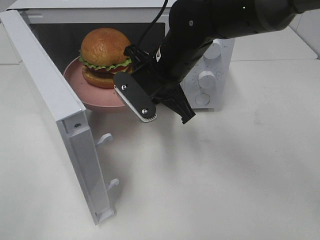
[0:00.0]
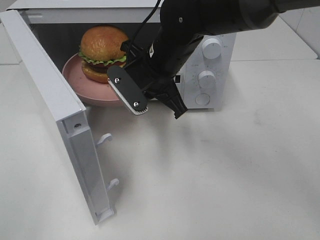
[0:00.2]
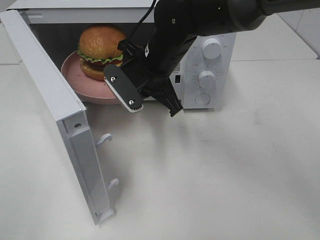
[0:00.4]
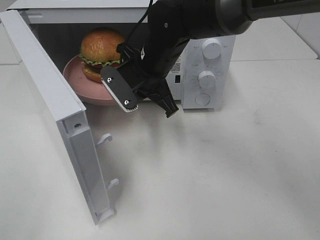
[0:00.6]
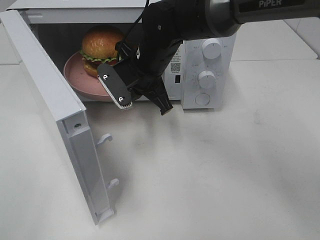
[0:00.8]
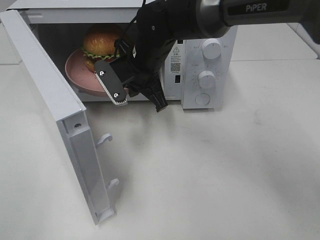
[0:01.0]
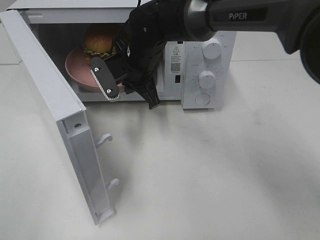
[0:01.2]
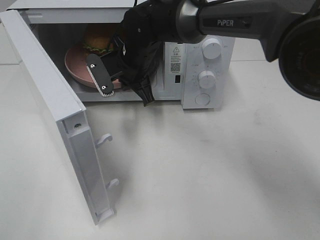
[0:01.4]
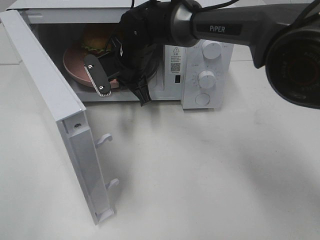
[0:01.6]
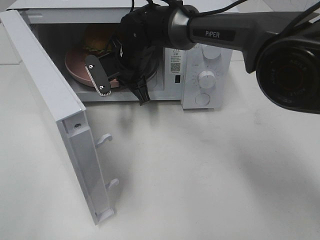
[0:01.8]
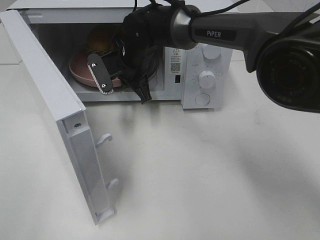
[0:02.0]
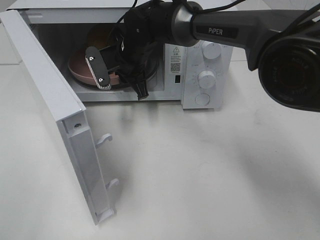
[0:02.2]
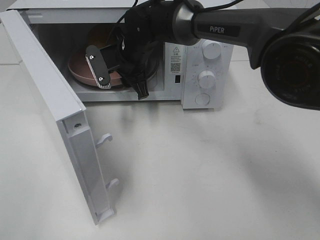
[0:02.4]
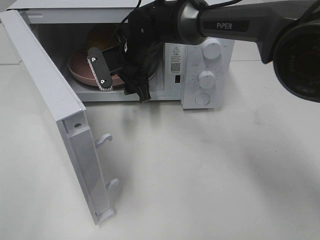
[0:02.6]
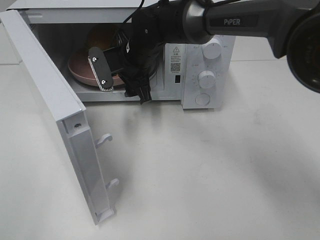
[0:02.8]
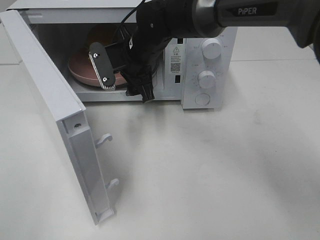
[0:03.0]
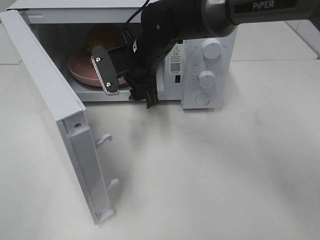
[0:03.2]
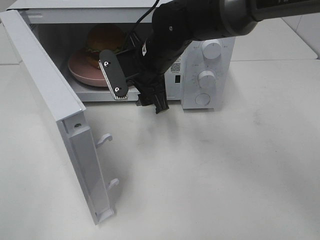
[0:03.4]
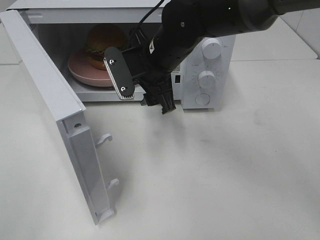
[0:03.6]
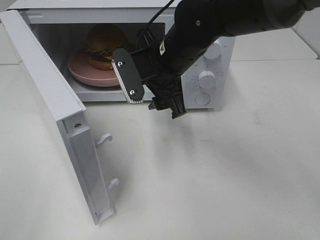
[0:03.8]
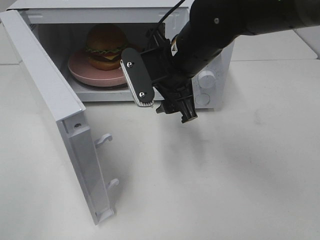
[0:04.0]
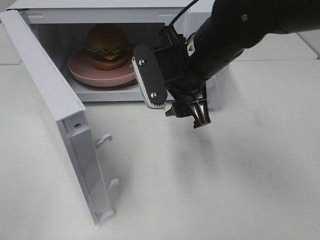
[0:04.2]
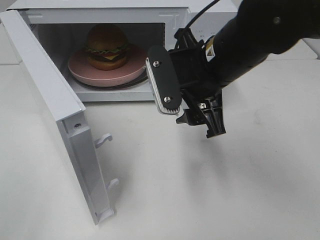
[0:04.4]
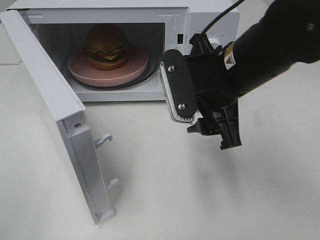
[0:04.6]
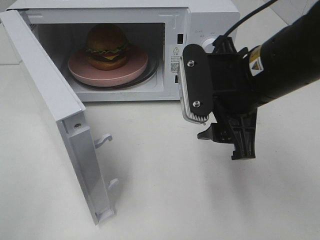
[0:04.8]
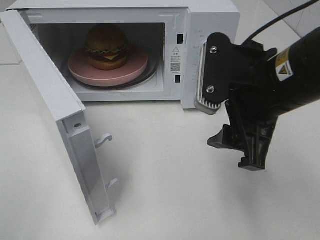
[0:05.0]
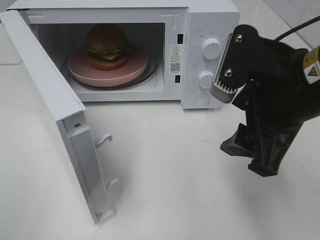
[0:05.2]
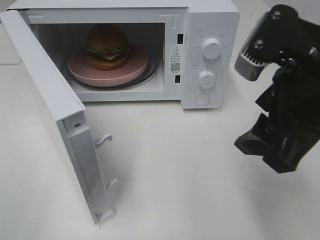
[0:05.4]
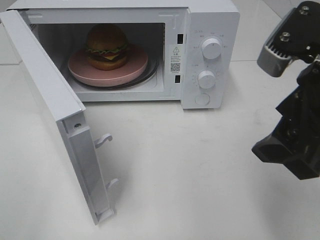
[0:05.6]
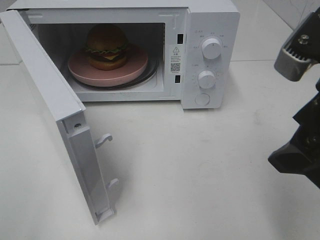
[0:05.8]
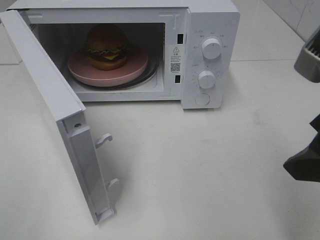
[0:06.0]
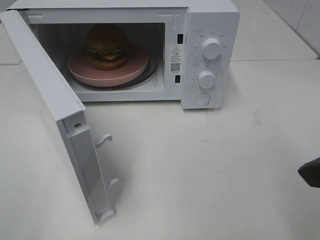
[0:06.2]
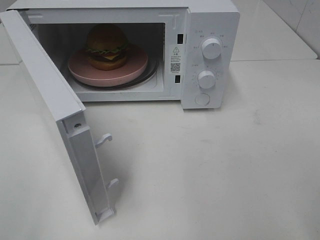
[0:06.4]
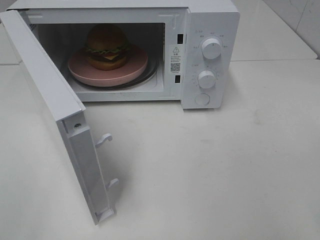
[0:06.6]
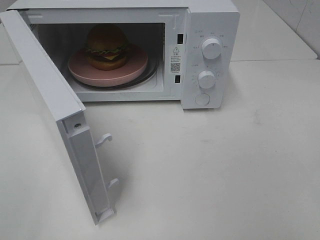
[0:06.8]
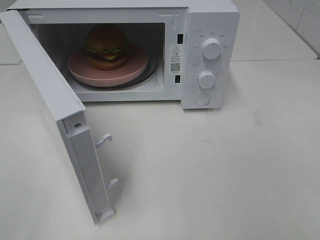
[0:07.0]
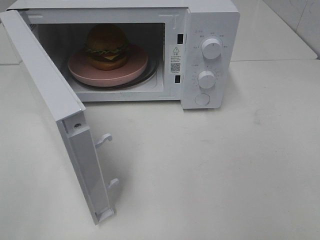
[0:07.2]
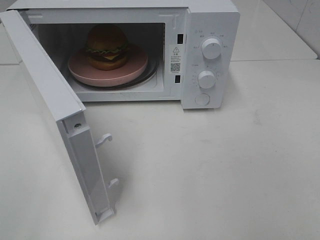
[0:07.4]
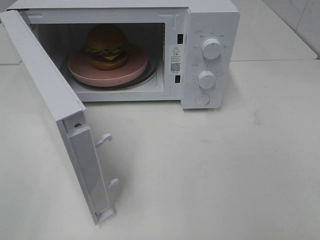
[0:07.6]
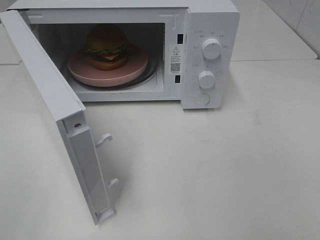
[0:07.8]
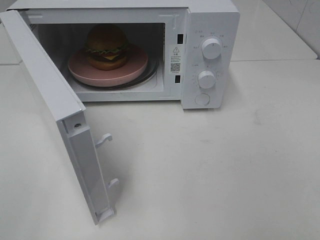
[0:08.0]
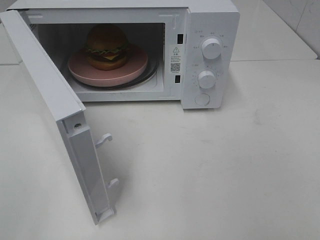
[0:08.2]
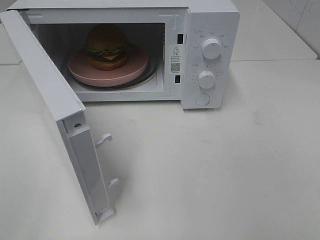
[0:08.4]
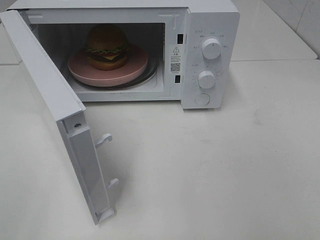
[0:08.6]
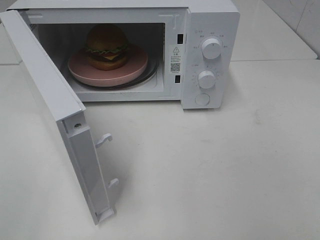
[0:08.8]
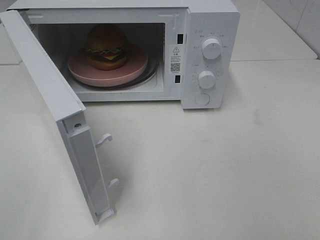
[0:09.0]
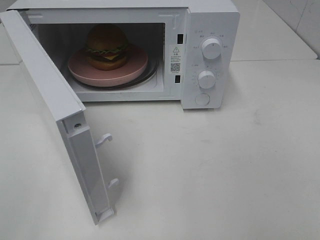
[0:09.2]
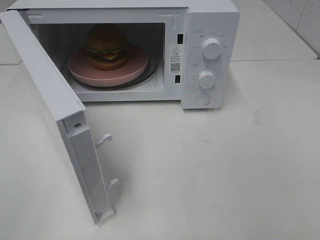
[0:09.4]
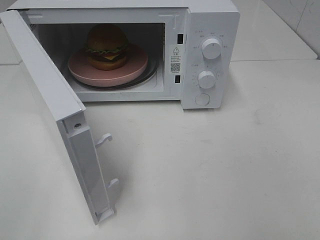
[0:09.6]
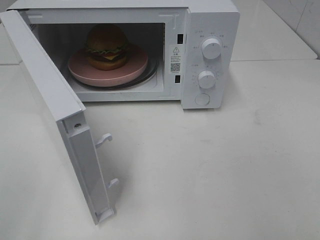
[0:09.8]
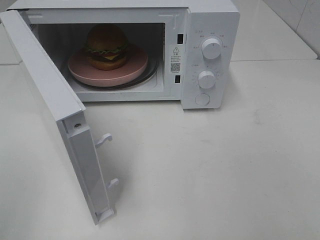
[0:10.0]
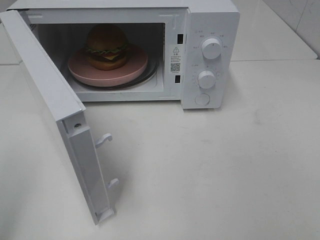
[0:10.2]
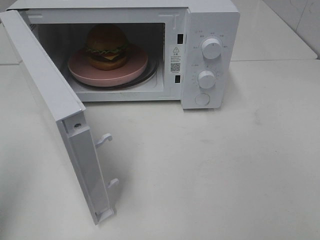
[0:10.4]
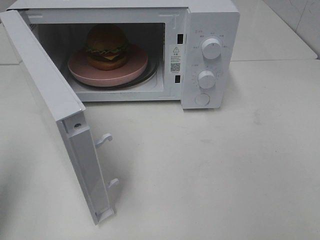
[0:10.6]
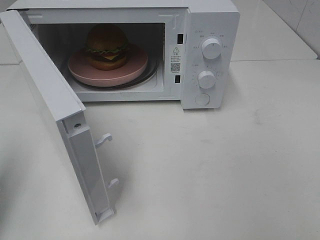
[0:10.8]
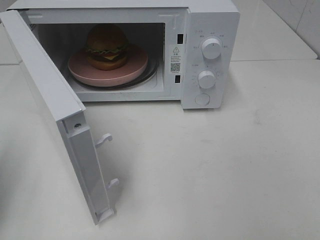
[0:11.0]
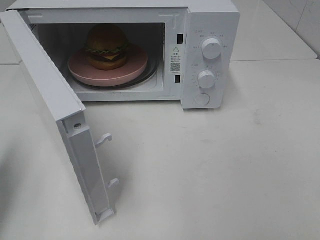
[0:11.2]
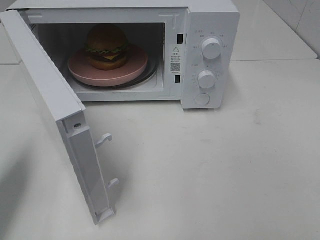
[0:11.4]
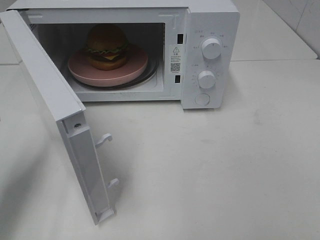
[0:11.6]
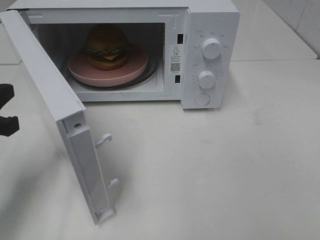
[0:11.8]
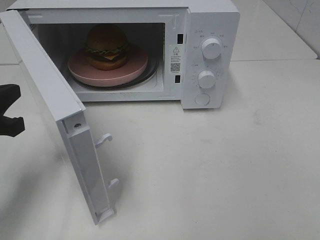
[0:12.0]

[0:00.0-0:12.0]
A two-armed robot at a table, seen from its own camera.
Task of the whole recording: Heat the burger.
Step, 0:00.0 to 0:02.4: Right hand: place the plate in the microwave.
0:00.0 to 0:01.6: The right gripper is displaced forward and to the left by some 10 cm.
0:01.6 to 0:03.0: The right gripper opens its fingers.
0:03.0 to 0:04.4: The right gripper heads backward and to the right, covering roughly 15 cm.
0:04.4 to 0:06.0: The right gripper goes some 20 cm backward, to the right and upward.
0:06.0 to 0:07.6: The right gripper heads backward and to the right, covering about 15 cm.
0:07.6 to 0:09.0: Both grippers stay put.
0:09.0 to 0:10.4: The left gripper shifts about 10 cm forward, and closes.
0:10.4 to 0:12.0: The left gripper travels downward, forward and to the right by some 15 cm.

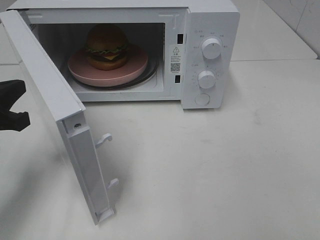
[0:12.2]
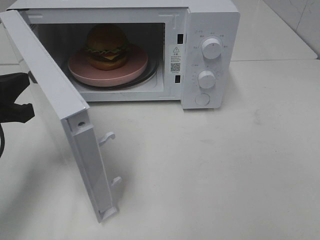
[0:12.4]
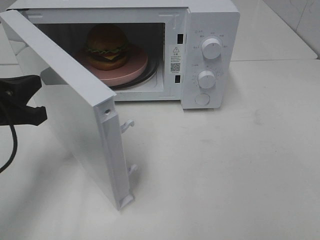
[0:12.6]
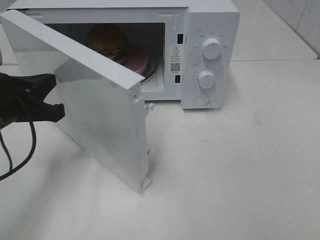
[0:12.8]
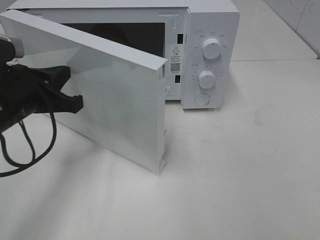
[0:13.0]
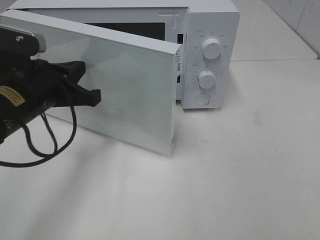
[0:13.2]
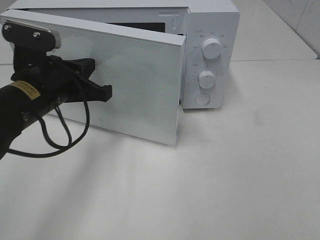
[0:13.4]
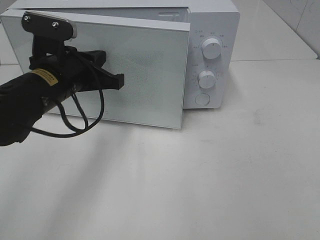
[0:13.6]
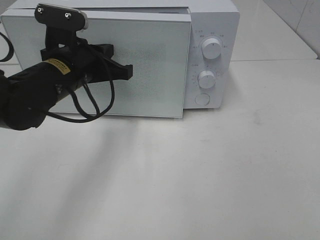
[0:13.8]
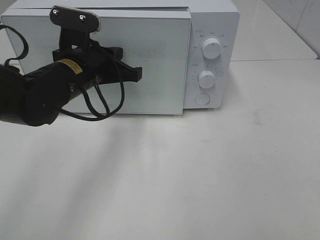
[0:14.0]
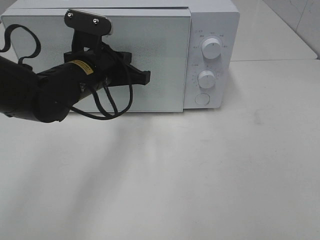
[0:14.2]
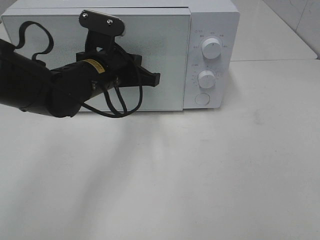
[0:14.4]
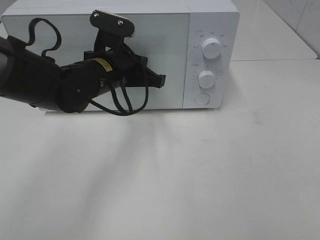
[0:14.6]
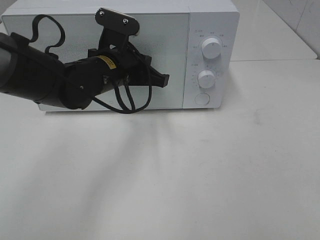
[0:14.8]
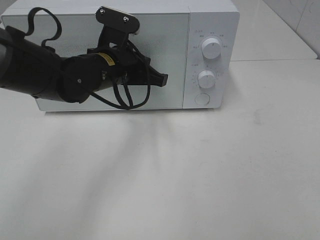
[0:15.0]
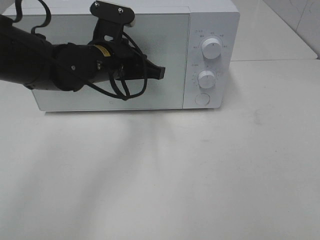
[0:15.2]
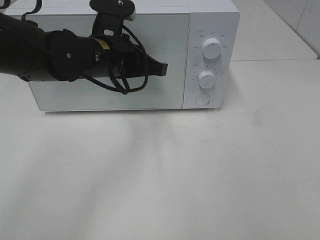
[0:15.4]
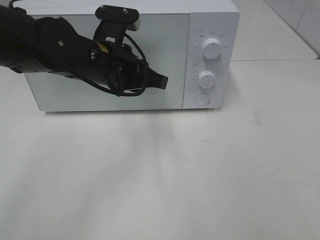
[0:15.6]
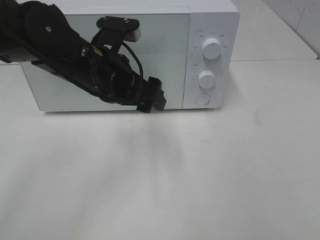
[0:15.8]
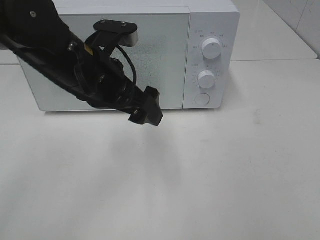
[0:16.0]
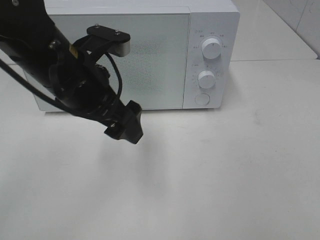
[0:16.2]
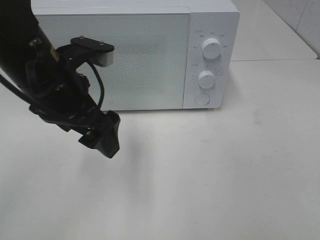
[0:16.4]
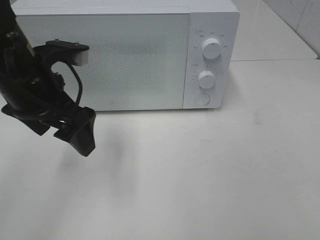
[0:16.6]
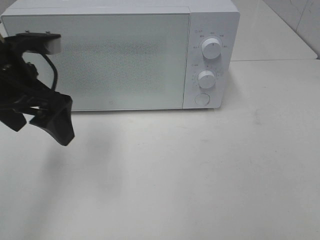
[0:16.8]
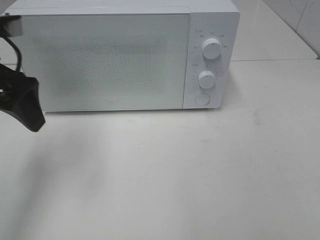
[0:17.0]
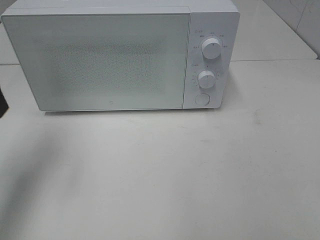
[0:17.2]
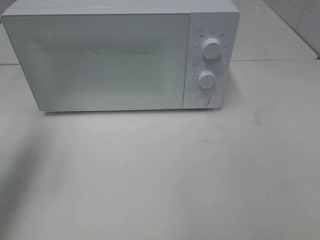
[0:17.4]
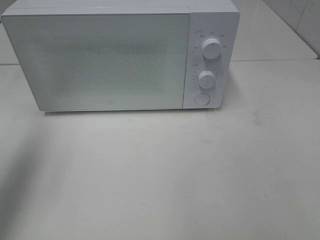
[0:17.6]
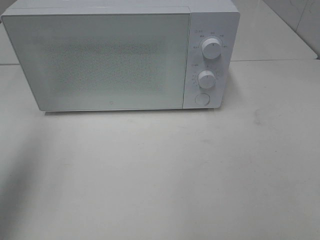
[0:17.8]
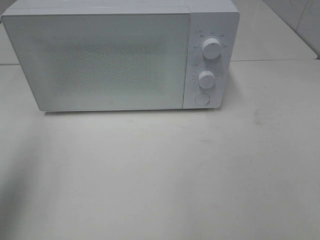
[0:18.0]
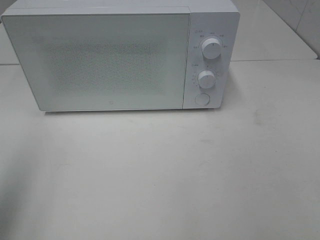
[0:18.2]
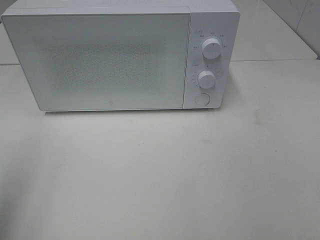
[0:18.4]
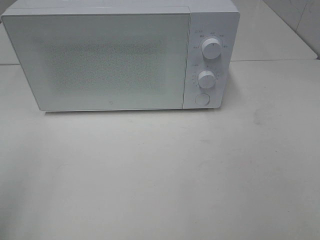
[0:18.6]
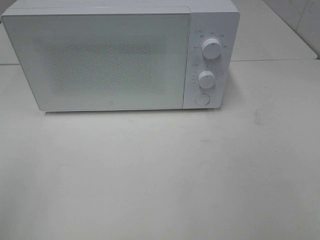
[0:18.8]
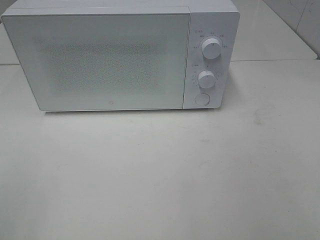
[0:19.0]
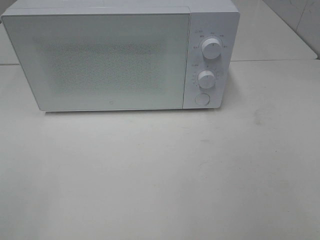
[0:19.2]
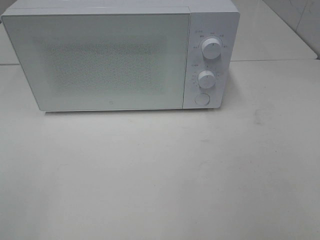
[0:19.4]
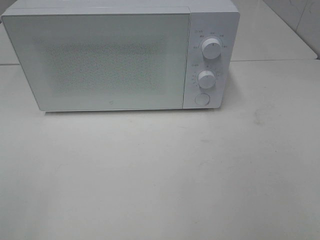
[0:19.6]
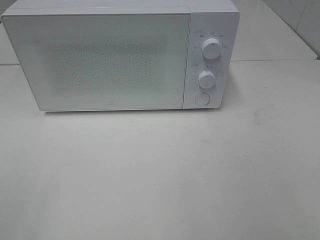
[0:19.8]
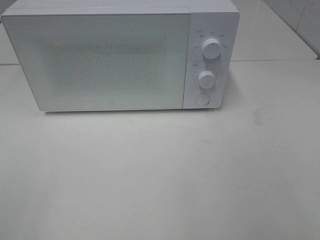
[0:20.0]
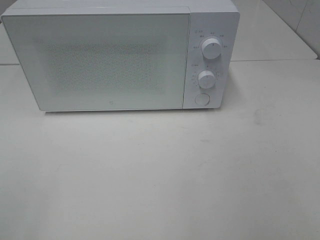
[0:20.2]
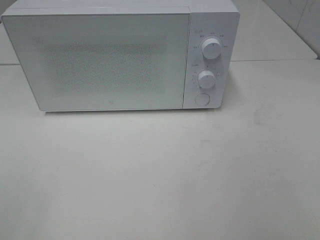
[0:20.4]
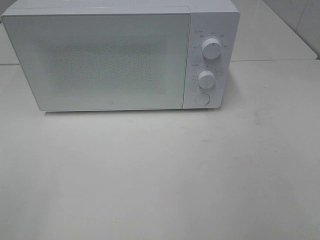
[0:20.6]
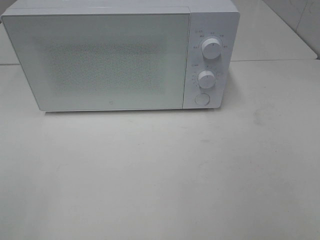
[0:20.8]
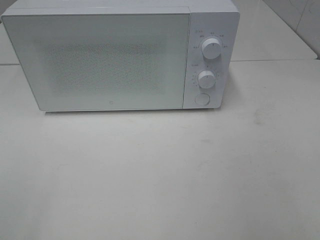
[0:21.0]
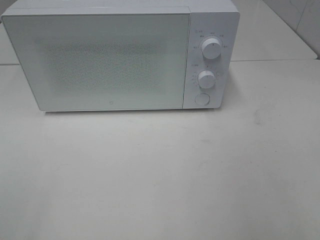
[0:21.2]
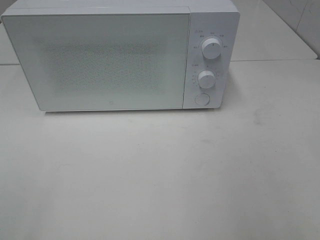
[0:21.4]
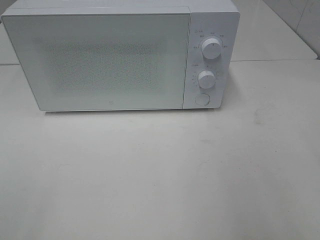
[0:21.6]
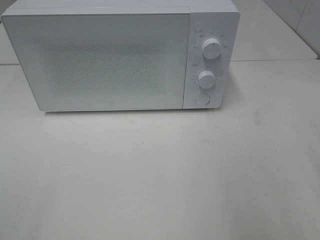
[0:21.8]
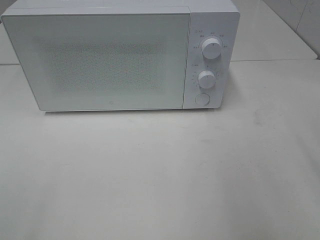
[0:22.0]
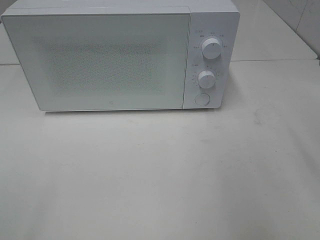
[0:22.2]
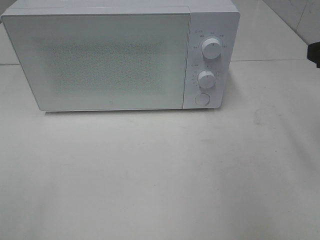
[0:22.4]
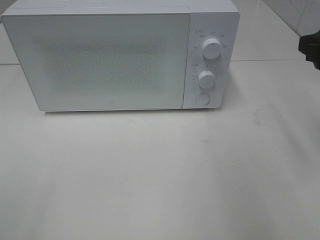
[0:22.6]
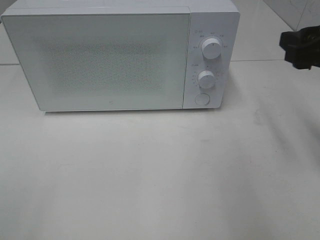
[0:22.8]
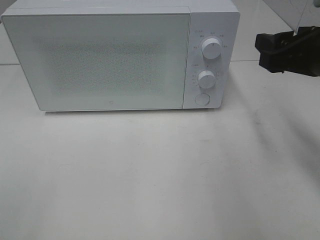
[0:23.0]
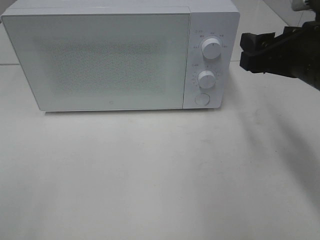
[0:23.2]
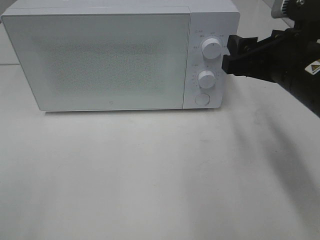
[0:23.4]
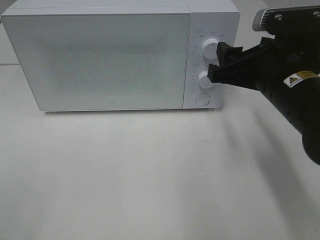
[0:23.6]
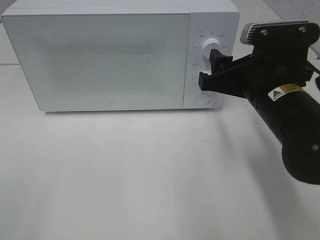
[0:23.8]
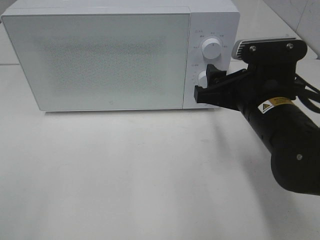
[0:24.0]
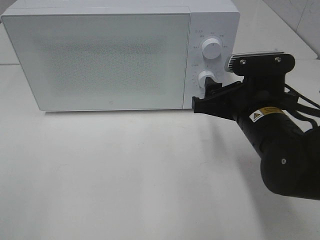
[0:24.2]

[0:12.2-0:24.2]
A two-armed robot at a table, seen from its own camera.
Task of the whole recording: Heat the burger.
Step, 0:12.2 to 0:15.6: Left hand: close the microwave door.
0:12.2 to 0:13.8: The left gripper shifts about 15 cm to the right and forward.
0:13.8 to 0:15.2: The left gripper shifts by about 5 cm.
0:15.2 to 0:16.6: The left gripper shifts some 10 cm to the left and backward, and opens its fingers.
0:16.6 to 0:18.2: The left gripper goes about 25 cm to the left, backward and upward.
0:18.2 to 0:19.8: The left gripper is displaced backward by about 15 cm.
0:21.2 to 0:22.6: The right gripper goes some 15 cm forward.
0:22.6 to 0:24.2: The right gripper moves downward and to the left, some 15 cm.
